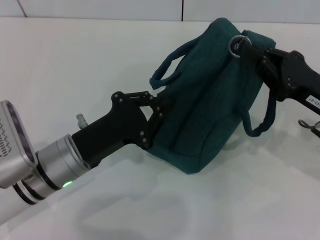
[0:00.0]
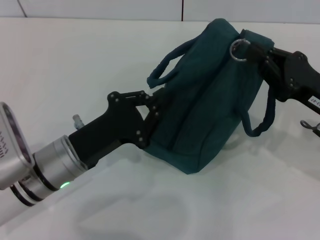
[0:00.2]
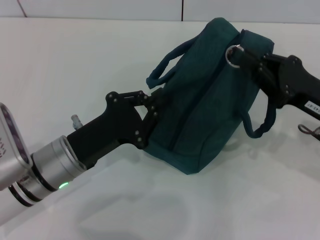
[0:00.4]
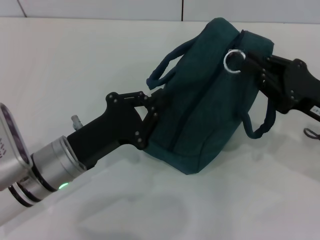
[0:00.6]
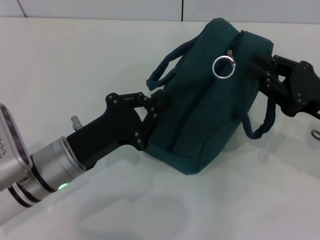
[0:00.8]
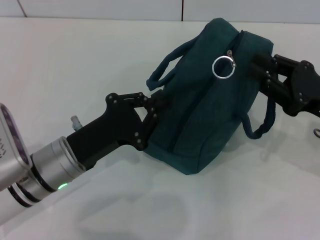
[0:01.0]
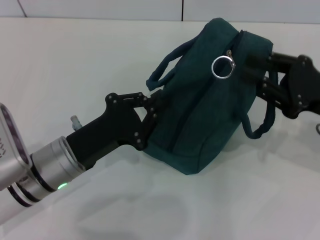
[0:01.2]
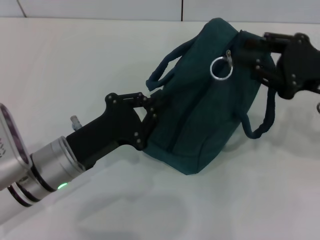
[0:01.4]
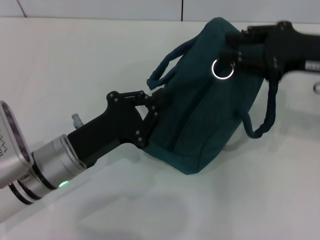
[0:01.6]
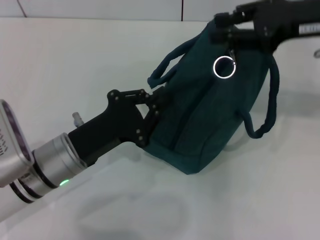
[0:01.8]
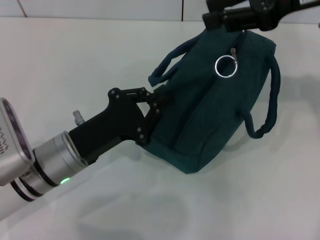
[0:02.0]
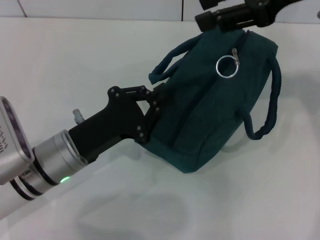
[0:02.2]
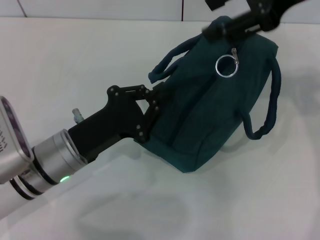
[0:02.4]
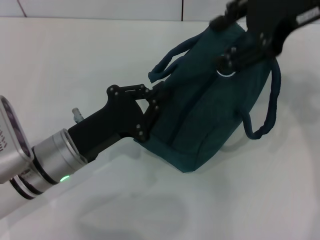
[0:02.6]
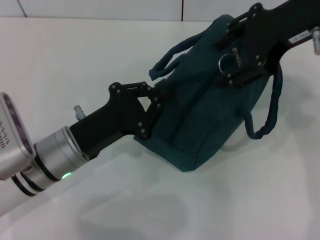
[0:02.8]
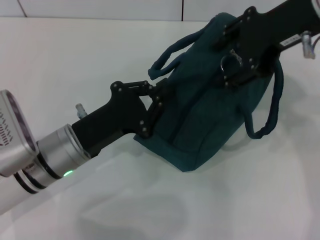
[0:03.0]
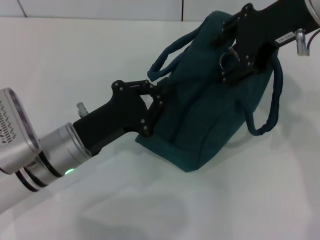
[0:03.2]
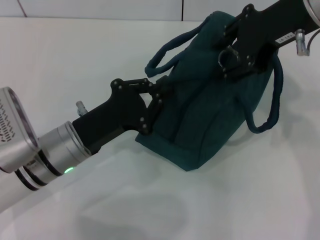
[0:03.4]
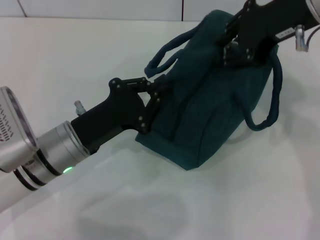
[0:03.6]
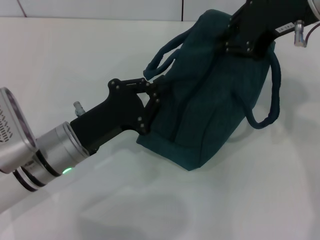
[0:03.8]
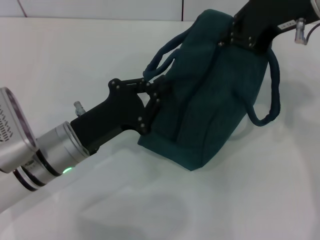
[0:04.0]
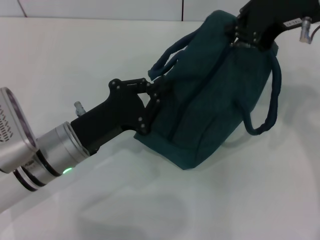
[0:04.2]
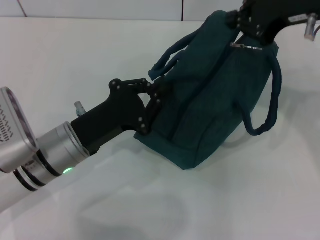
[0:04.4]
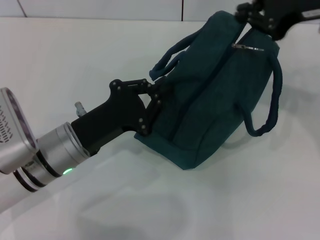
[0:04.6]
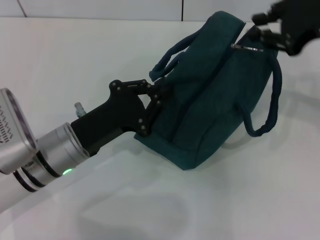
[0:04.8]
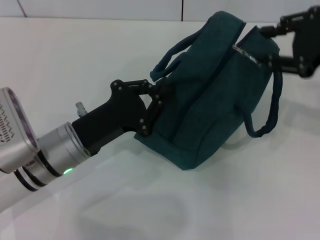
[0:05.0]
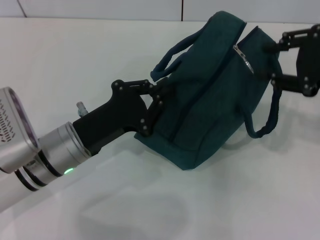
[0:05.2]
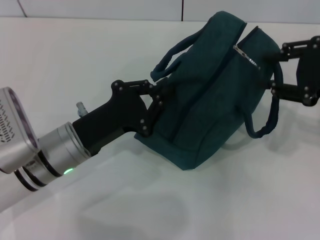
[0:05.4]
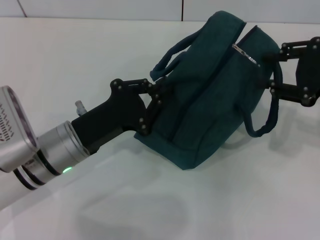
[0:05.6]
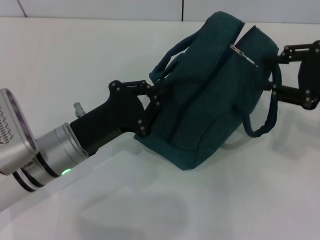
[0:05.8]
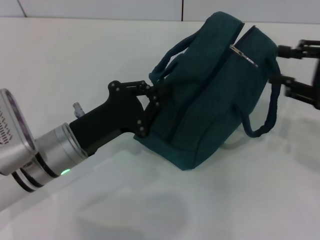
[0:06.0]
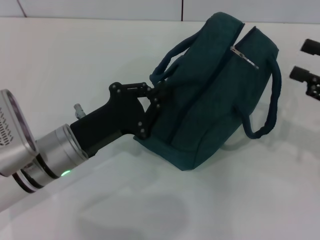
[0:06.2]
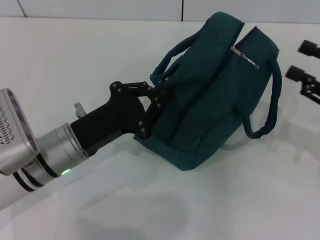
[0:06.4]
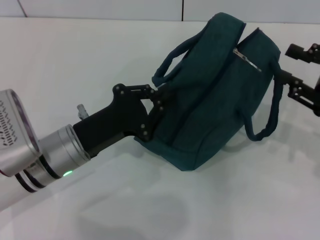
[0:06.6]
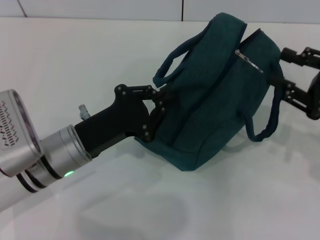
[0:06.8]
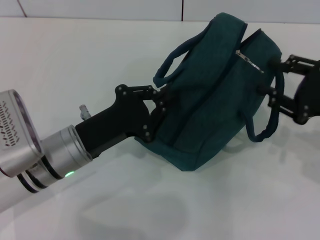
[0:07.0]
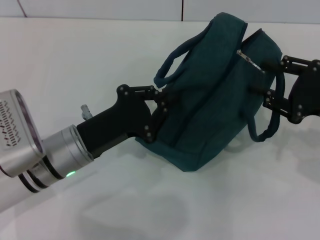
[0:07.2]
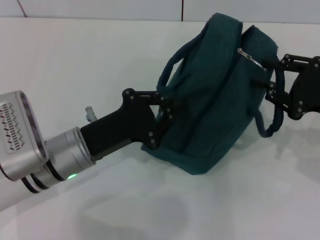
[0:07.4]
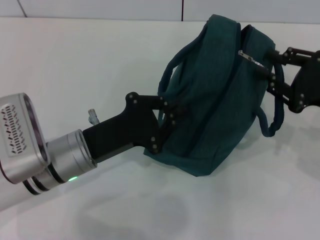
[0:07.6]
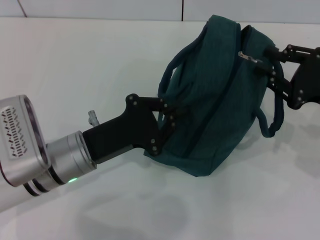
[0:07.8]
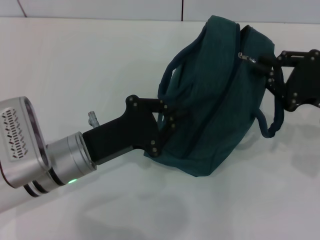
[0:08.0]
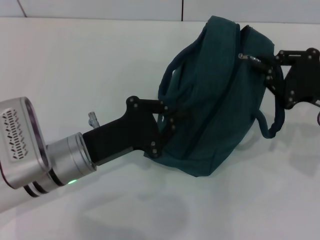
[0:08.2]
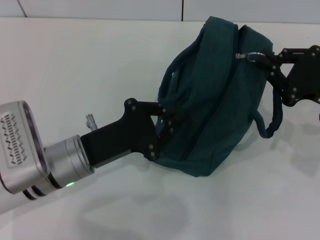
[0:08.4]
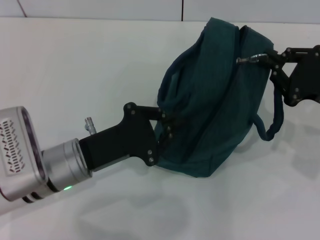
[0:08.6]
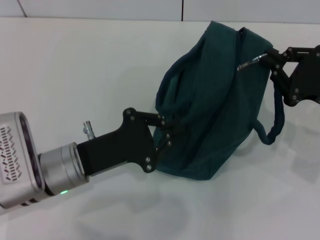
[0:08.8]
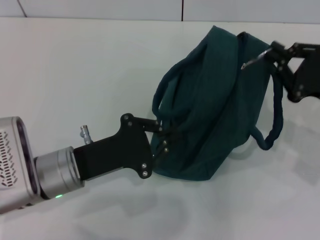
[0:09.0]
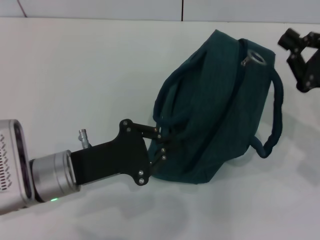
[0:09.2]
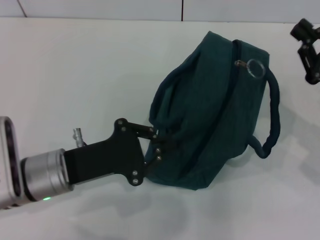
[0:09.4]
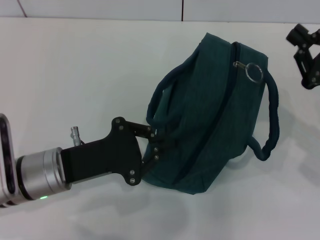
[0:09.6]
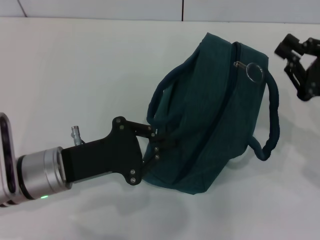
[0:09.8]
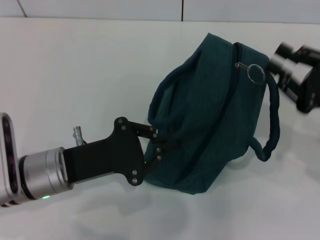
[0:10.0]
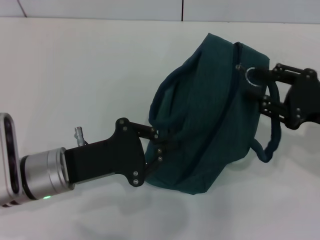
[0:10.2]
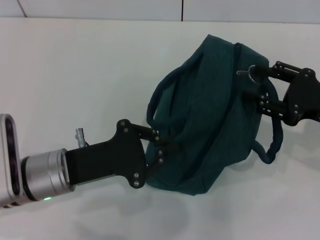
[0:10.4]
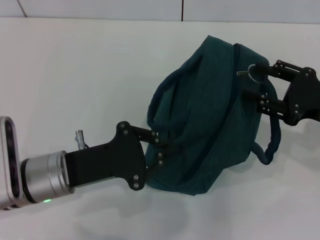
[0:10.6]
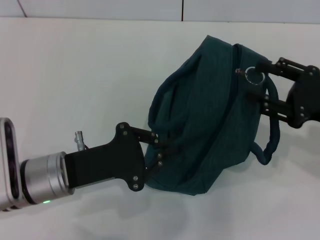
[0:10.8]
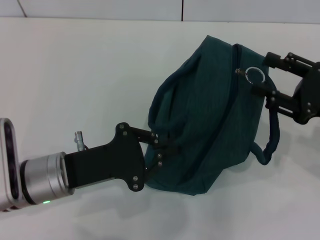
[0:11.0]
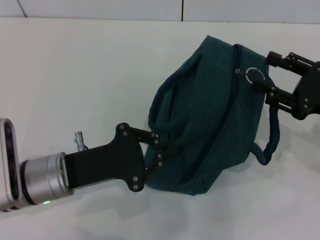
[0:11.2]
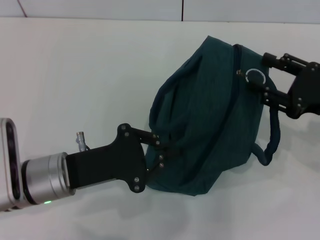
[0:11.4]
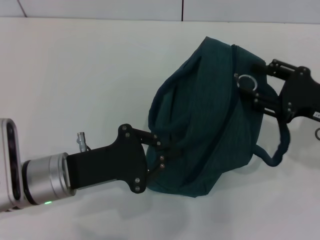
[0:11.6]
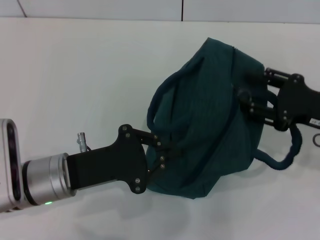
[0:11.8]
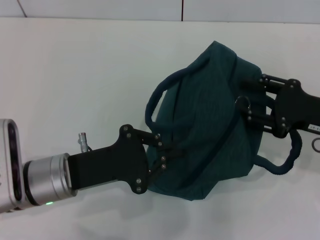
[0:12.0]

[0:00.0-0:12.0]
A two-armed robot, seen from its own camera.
0:00.0 to 0:01.6: The right gripper travels upward by approximately 10 cm, and opens.
0:01.6 to 0:03.0: The right gripper heads upward and to the left, covering some 10 cm, and opens.
0:03.0 to 0:04.4: The right gripper closes up.
0:04.4 to 0:06.0: The right gripper travels to the right, downward and backward by some 15 cm, and opens its fingers.
0:06.0 to 0:07.6: The right gripper travels downward by approximately 5 cm.
0:07.6 to 0:09.0: The grippers make only small movements.
0:09.0 to 0:10.4: The right gripper opens its fingers.
0:10.4 to 0:12.0: The grippers move only a little.

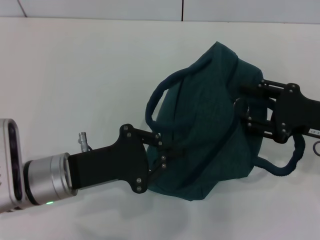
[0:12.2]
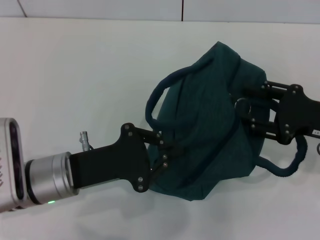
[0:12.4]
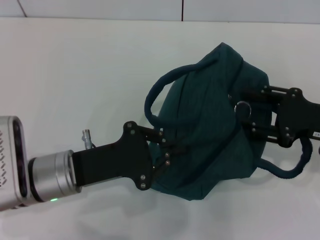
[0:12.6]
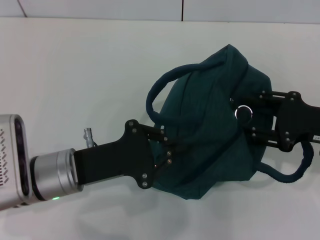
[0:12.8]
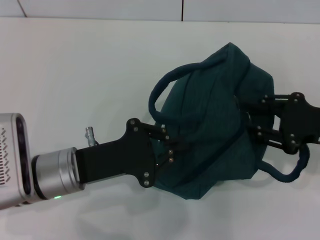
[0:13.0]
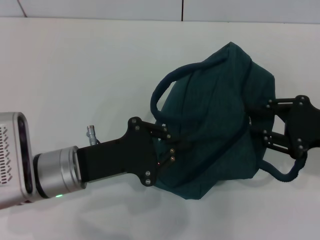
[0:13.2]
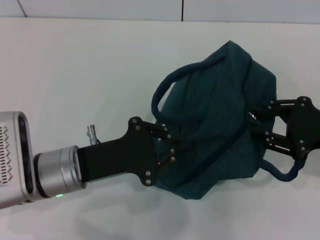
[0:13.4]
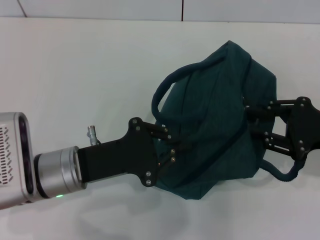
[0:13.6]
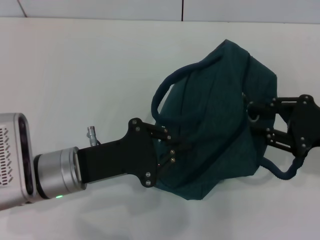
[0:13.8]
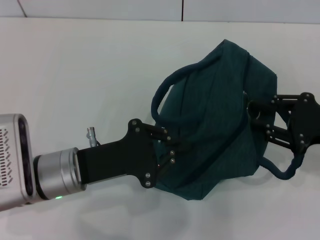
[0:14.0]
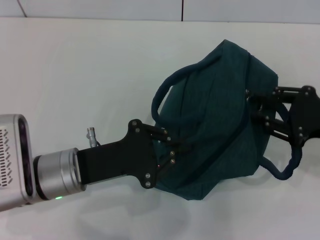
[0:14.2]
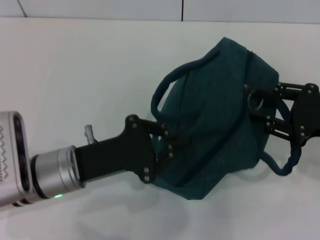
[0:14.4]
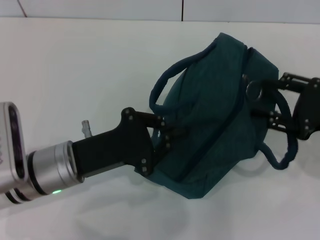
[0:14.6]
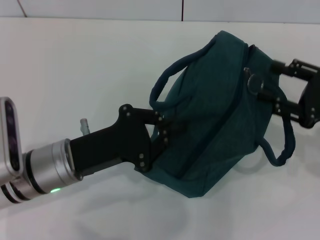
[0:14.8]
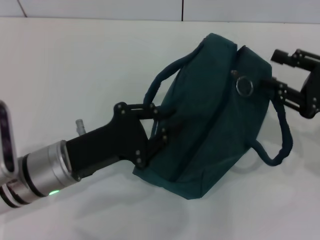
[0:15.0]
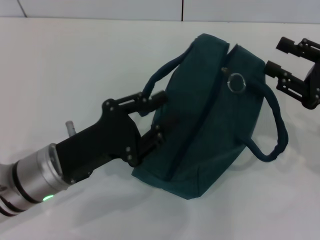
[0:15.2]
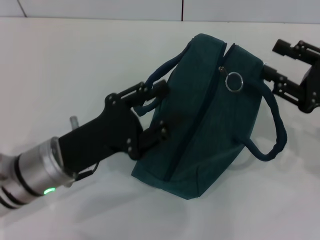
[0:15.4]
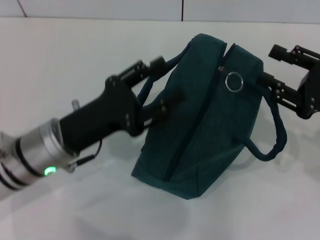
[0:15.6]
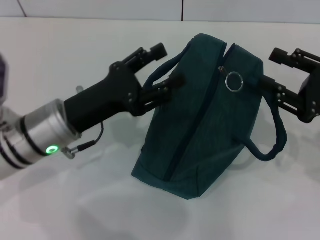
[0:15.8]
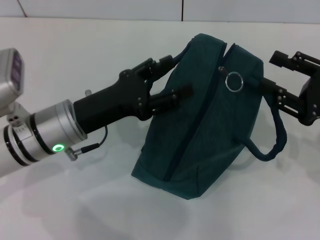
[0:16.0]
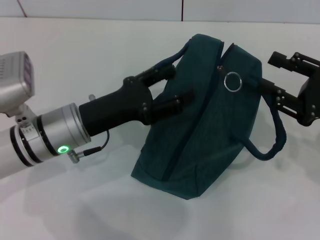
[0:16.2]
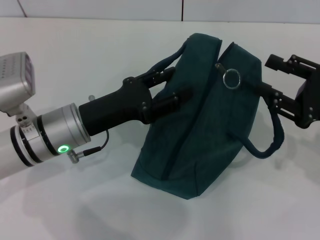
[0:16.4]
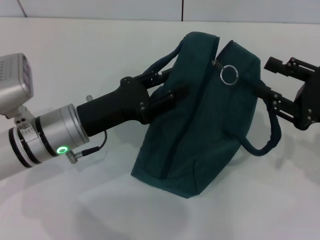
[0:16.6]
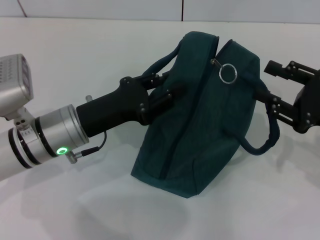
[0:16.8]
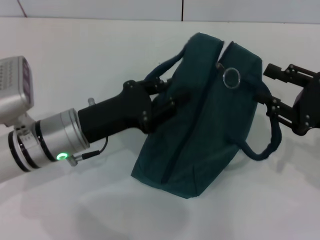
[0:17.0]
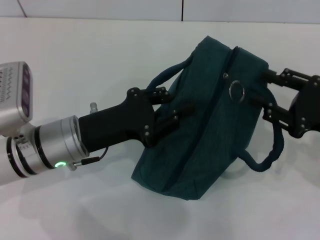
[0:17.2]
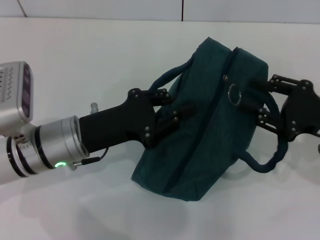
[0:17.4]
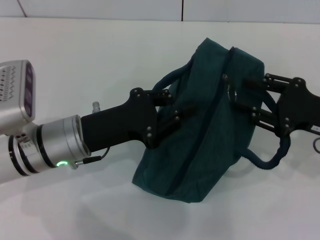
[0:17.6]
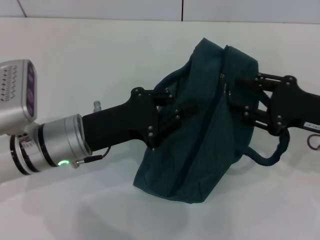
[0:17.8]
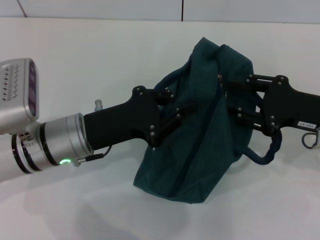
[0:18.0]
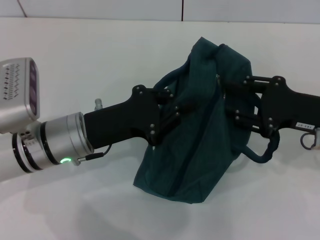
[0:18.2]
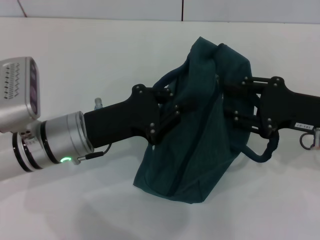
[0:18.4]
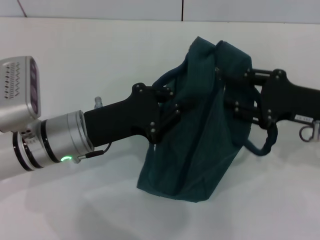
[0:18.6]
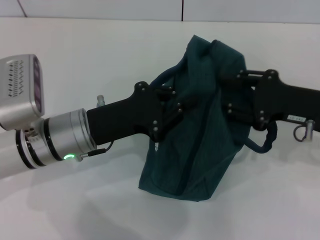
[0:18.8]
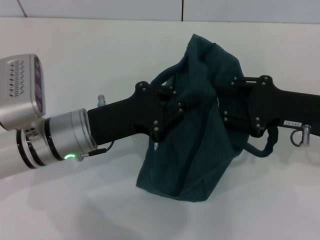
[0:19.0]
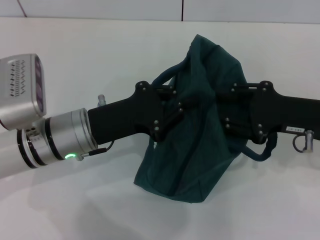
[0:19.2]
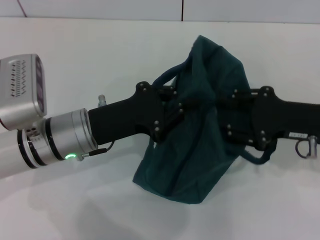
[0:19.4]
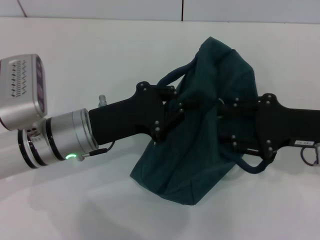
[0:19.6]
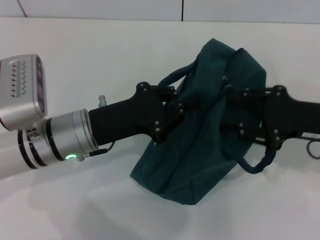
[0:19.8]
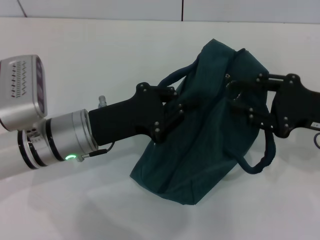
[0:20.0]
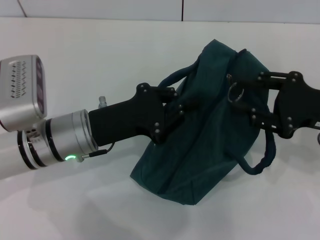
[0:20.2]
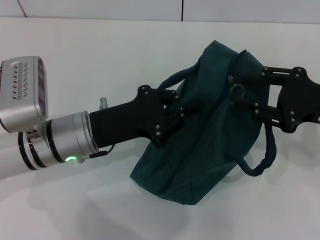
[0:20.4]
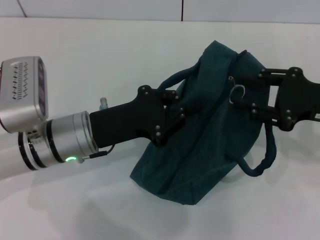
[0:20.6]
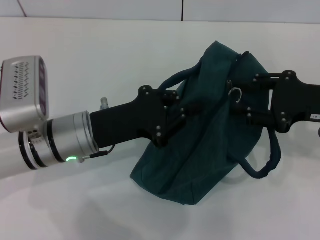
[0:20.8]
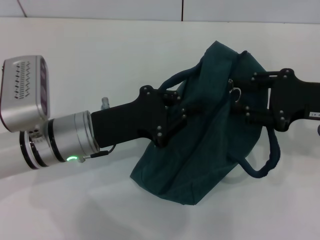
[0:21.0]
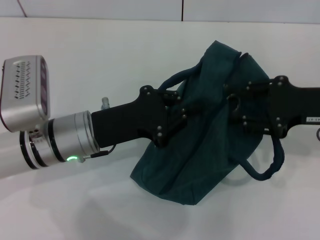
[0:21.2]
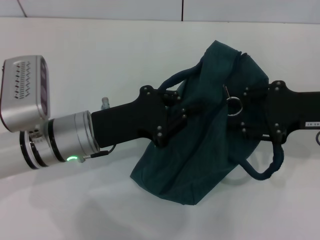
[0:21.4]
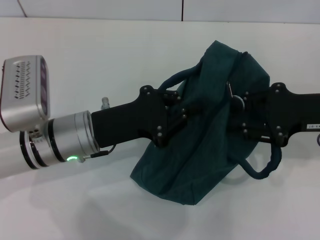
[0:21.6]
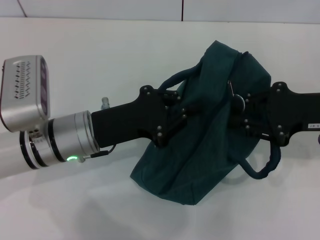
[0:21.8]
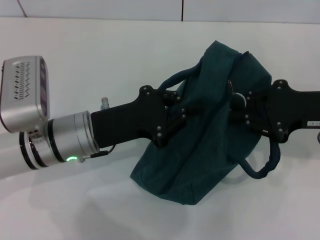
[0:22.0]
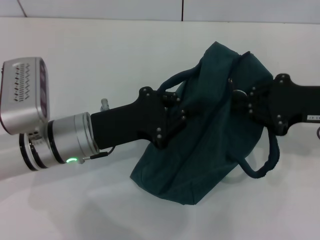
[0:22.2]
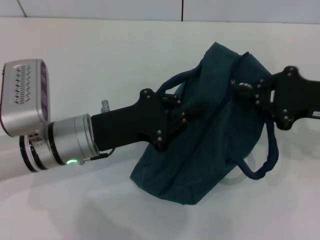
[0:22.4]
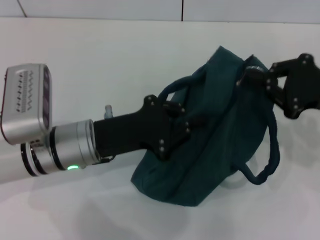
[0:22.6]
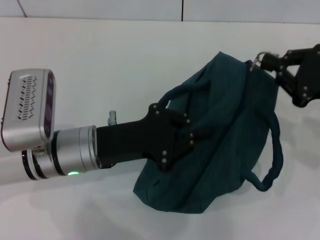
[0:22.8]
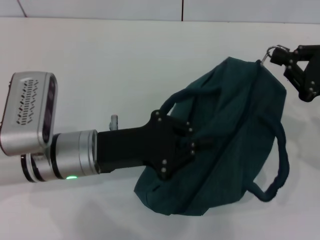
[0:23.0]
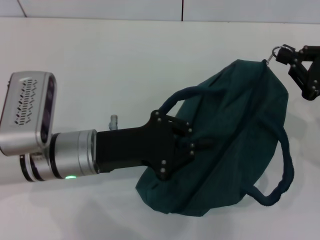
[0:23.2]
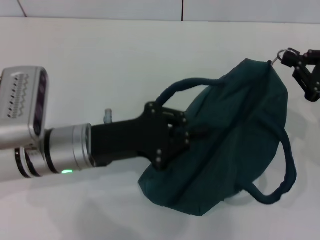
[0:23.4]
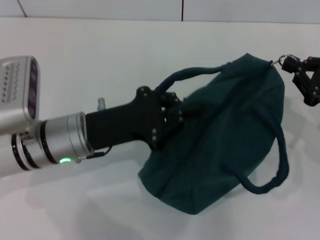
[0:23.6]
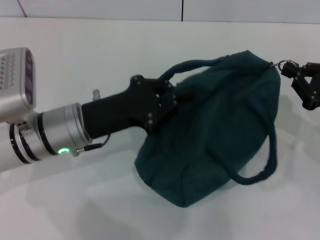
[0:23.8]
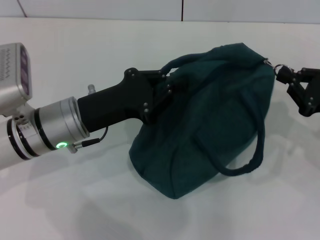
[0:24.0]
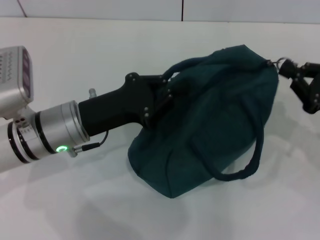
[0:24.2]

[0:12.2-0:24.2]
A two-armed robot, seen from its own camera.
0:12.2 to 0:13.8: The grippers stay close to where they were, moving slightly.
0:15.2 to 0:16.6: The left gripper heads forward, covering approximately 5 cm, and opens up.
0:16.6 to 0:18.2: The left gripper closes up.
0:18.2 to 0:21.2: The grippers stay close to where they were, moving slightly.
0:21.2 to 0:22.6: The right gripper closes its fingers.
0:22.6 to 0:24.2: The right gripper moves some 5 cm.
